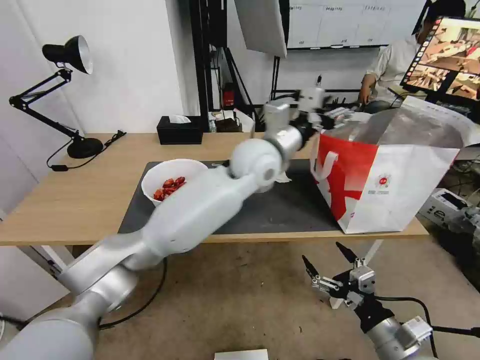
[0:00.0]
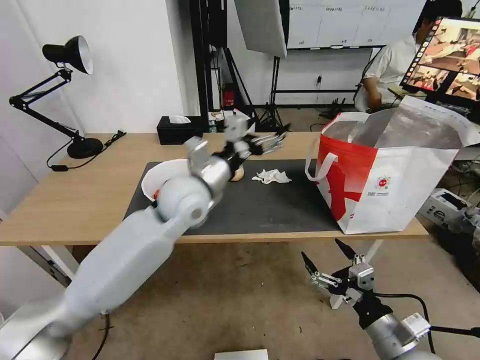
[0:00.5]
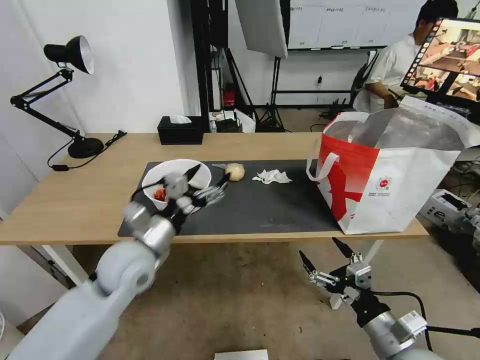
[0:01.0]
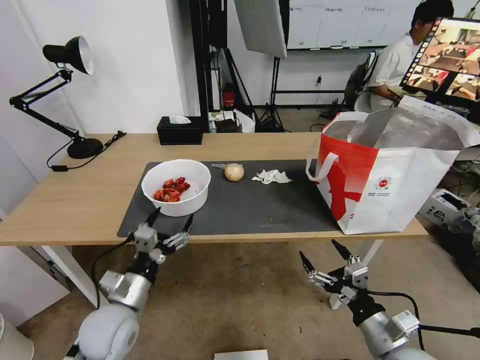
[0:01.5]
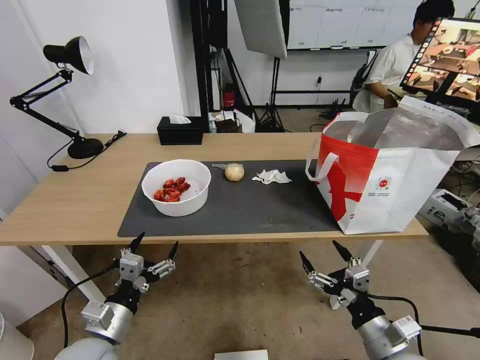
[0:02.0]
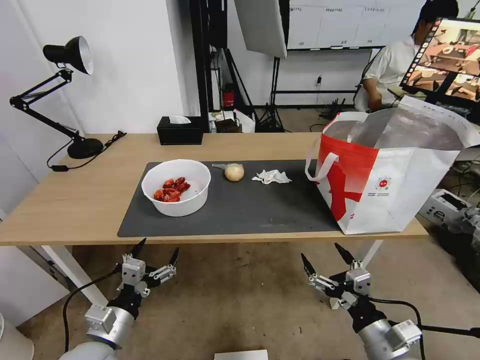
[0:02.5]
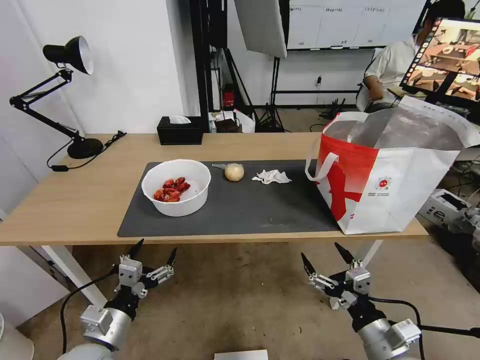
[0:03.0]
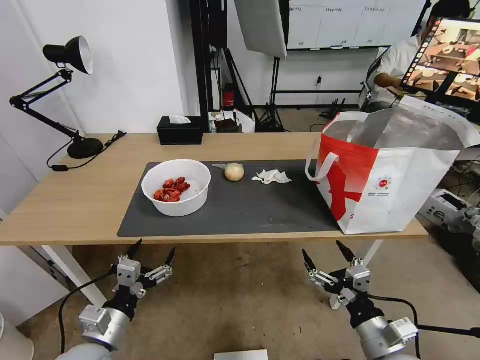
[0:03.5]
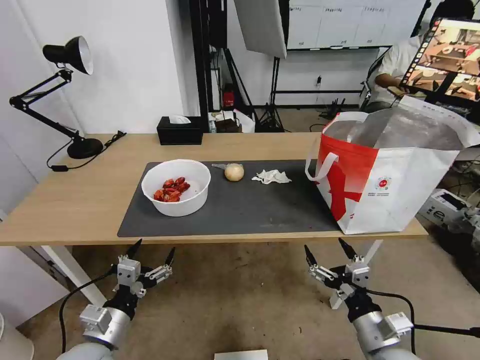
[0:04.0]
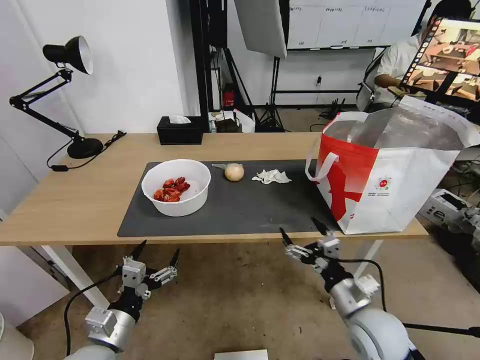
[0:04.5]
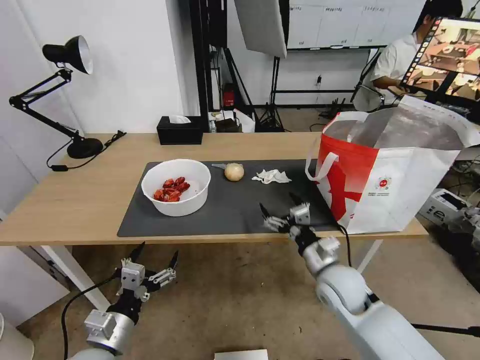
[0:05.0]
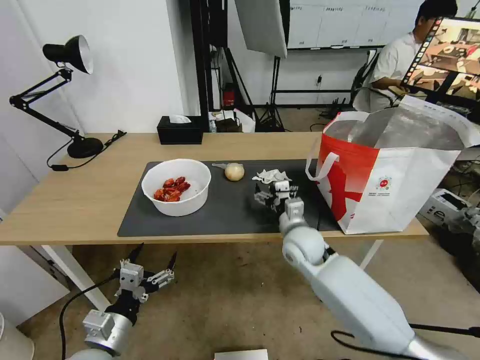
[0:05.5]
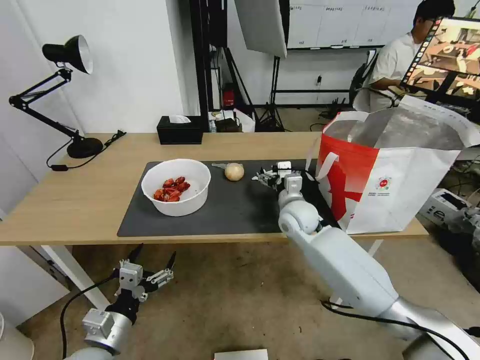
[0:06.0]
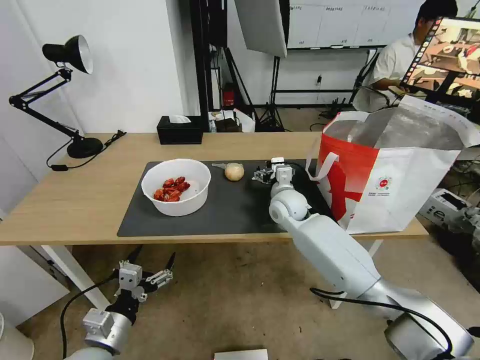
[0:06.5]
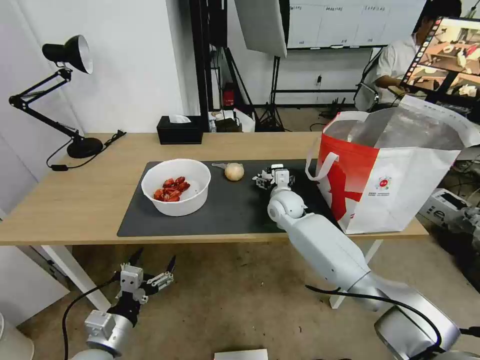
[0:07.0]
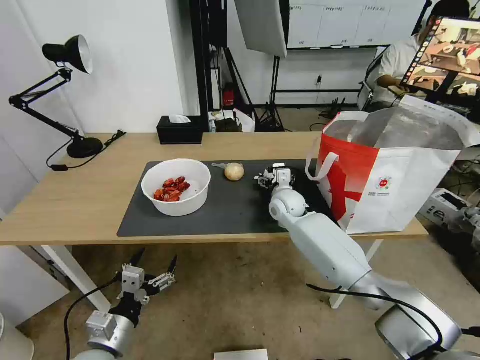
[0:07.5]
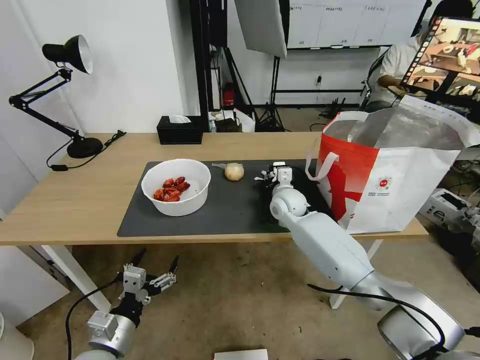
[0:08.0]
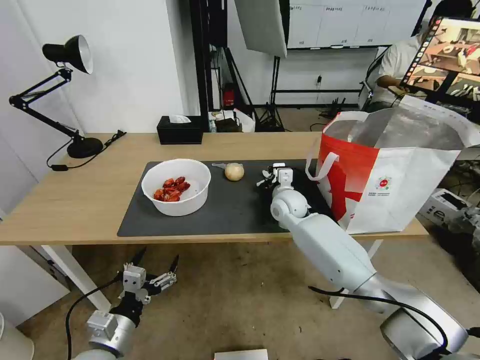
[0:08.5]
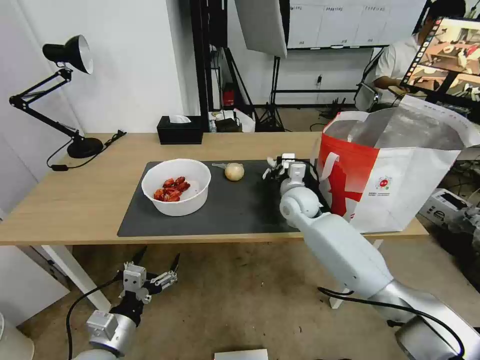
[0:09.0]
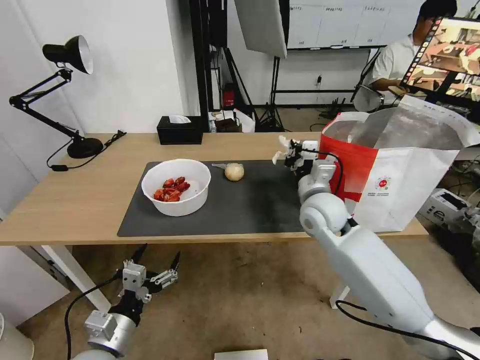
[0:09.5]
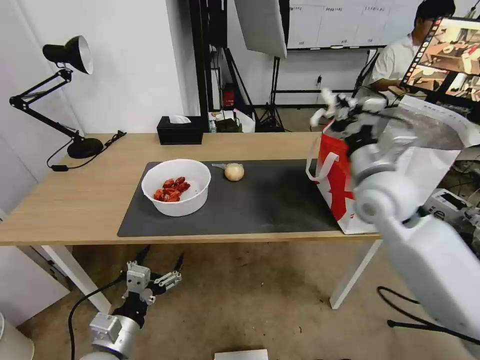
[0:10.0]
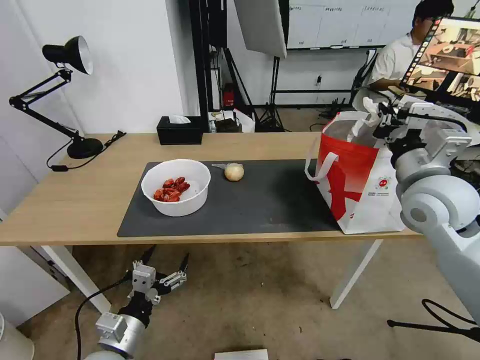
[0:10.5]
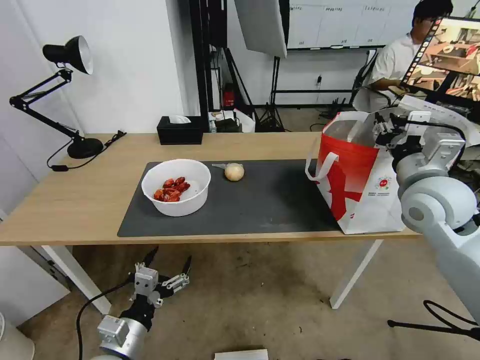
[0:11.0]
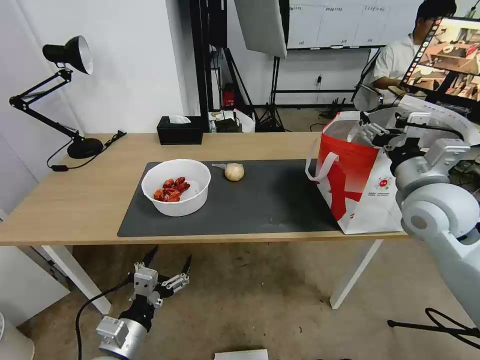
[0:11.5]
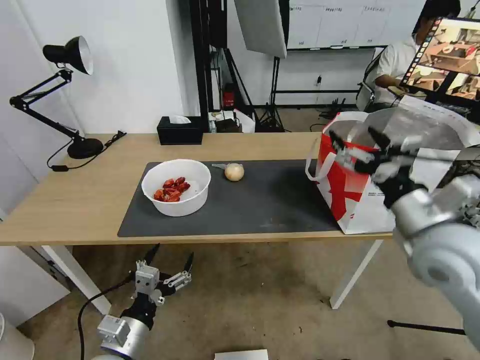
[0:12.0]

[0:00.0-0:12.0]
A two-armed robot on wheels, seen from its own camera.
Task of the whole recording: Pick up the trash from the table and place it into the takeout bag.
0:00.0 to 0:02.0: The left gripper heads to the left, backward and downward, covering about 50 cm.
0:02.0 to 0:04.0: There are only small adjustments of the grippers.
0:04.0 to 0:06.0: The right gripper heads forward and to the left, covering some 35 cm.
0:06.0 to 0:08.0: The right gripper travels forward by about 5 cm, and closes.
0:08.0 to 0:10.0: The right gripper goes roughly 25 cm upward, backward and to the right, and closes its fingers.
0:10.0 to 0:12.0: The right gripper is displaced backward by approximately 10 cm, and opens.

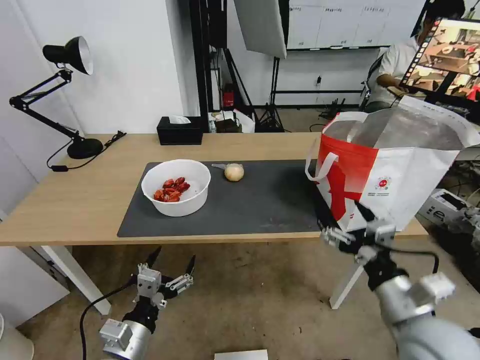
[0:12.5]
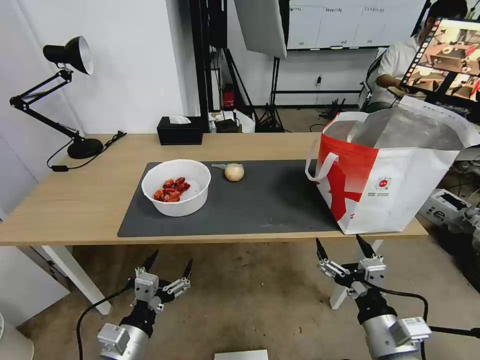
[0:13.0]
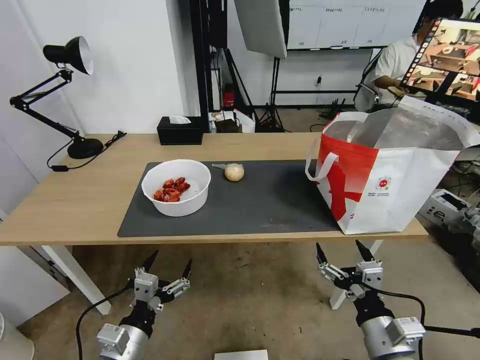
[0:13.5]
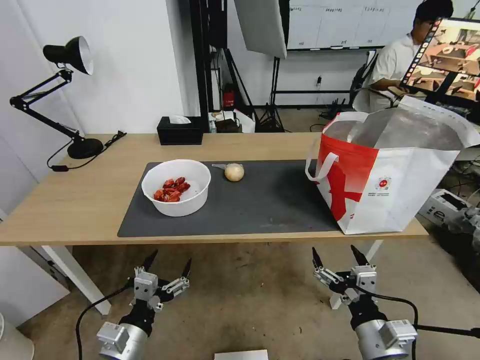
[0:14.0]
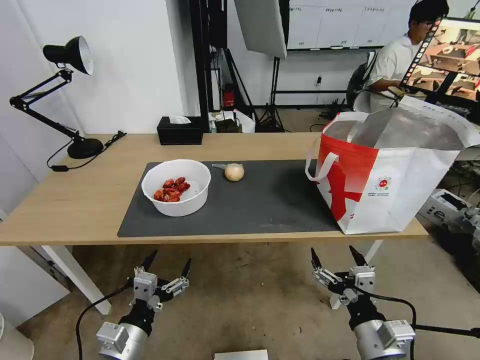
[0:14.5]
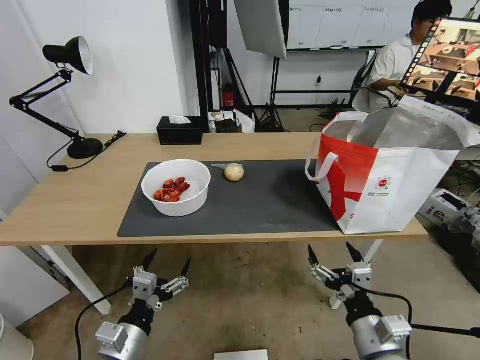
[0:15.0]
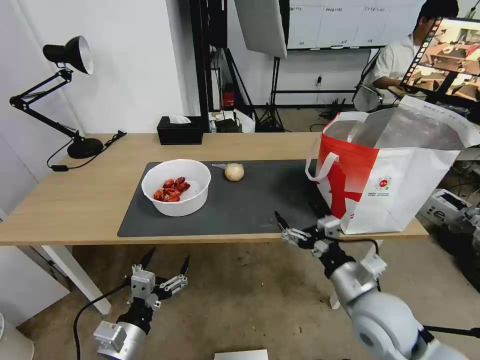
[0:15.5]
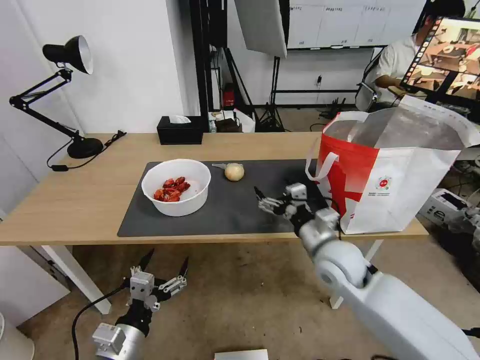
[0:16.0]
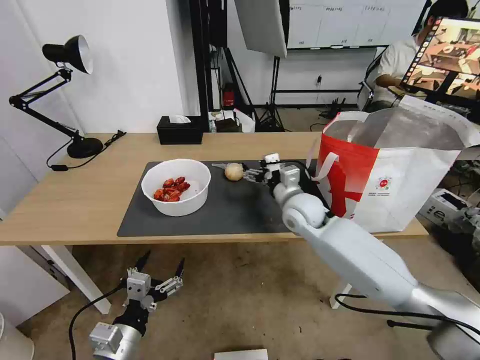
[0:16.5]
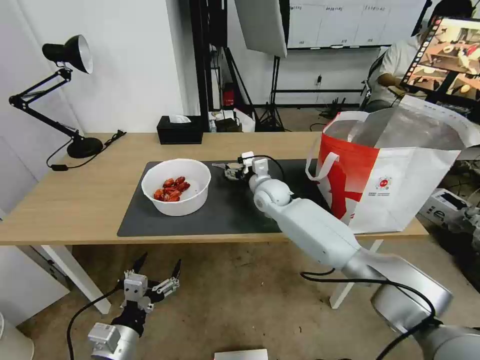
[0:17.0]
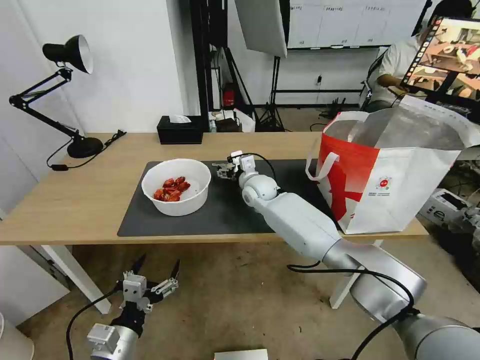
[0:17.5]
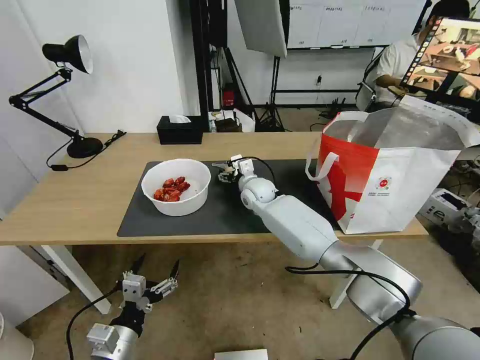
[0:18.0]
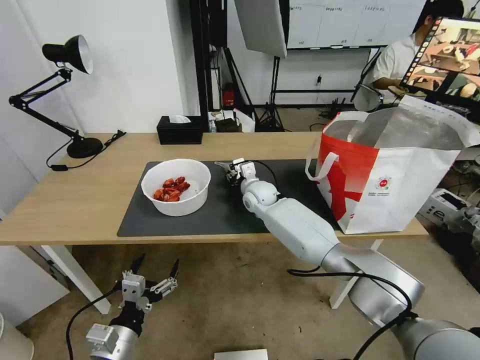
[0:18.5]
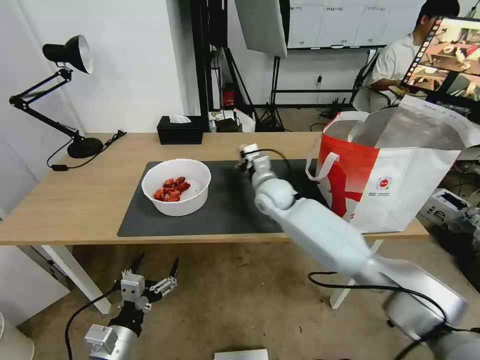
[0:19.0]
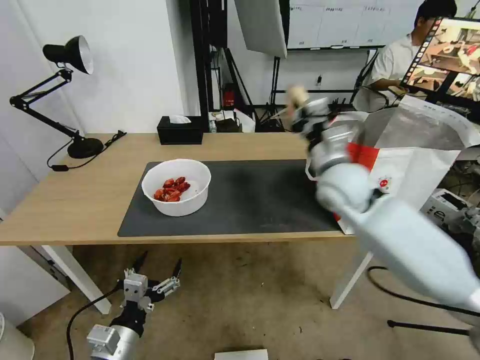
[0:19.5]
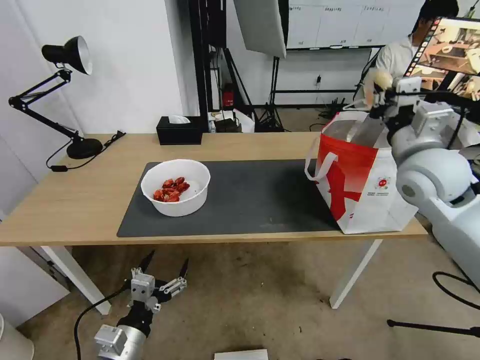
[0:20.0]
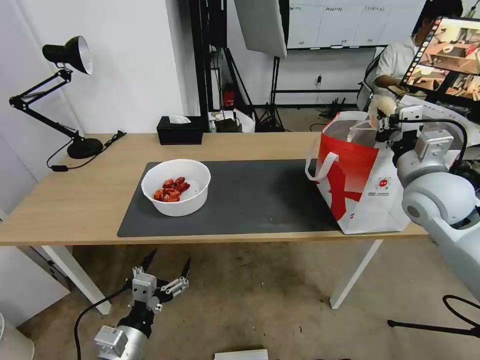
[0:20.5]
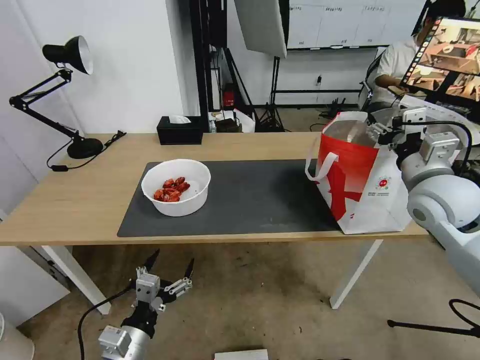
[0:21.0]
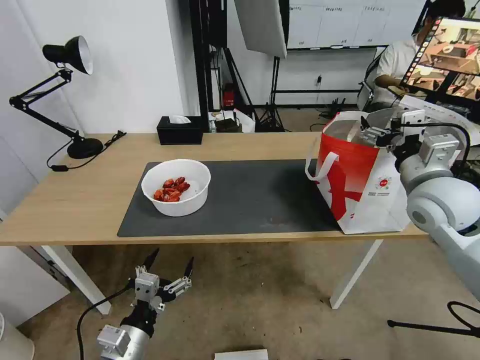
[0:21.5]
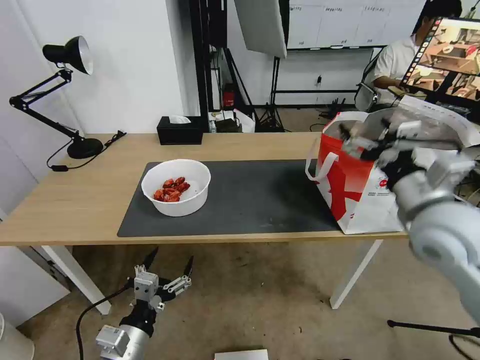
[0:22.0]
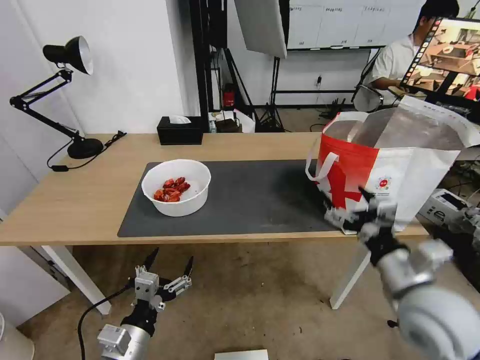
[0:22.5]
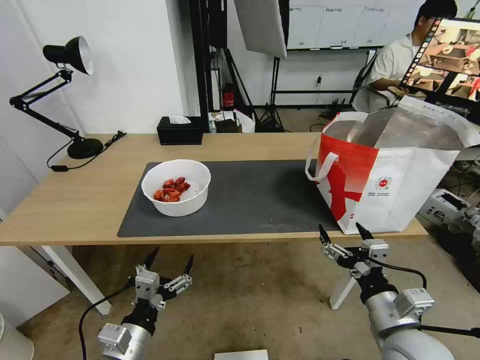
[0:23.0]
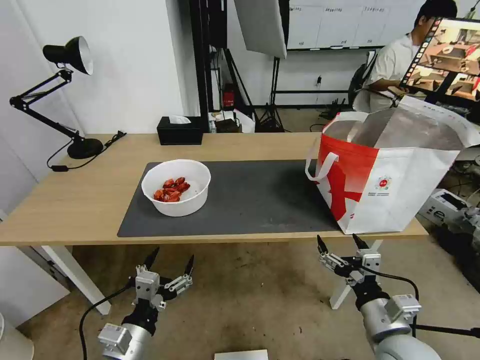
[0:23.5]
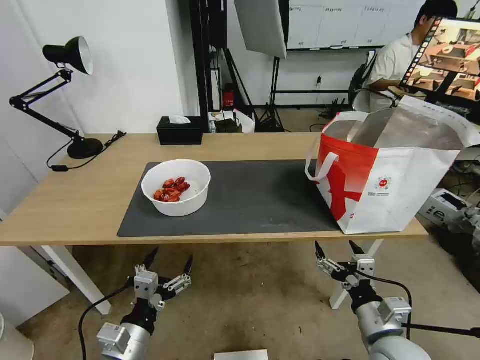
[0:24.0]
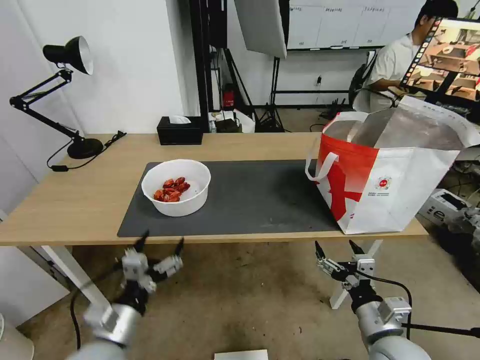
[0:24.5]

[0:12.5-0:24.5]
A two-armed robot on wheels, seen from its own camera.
Task of the whole recording: Pick up the trash from the table and place it into the takeout bag.
0:12.5 to 0:14.5: The right gripper is displaced downward by approximately 10 cm.
0:14.5 to 0:16.5: The right gripper shifts approximately 30 cm forward.
0:16.5 to 0:18.5: The right gripper travels forward, to the left and downward by some 15 cm, and closes its fingers.
0:18.5 to 0:20.5: The right gripper moves to the right, upward and backward, some 40 cm.
0:20.5 to 0:22.5: The right gripper shifts approximately 20 cm backward and downward, and opens its fingers.
0:22.5 to 0:24.5: The right gripper is displaced downward by some 10 cm.

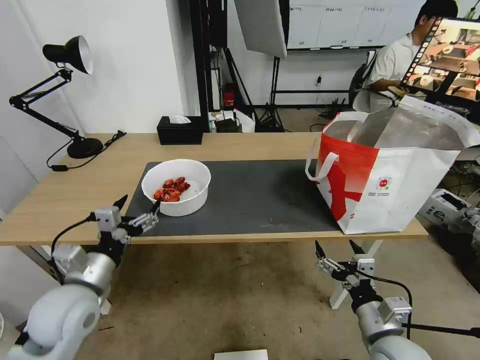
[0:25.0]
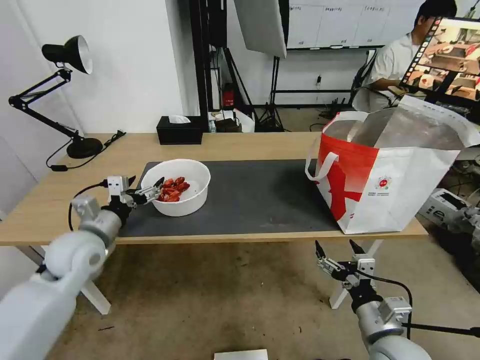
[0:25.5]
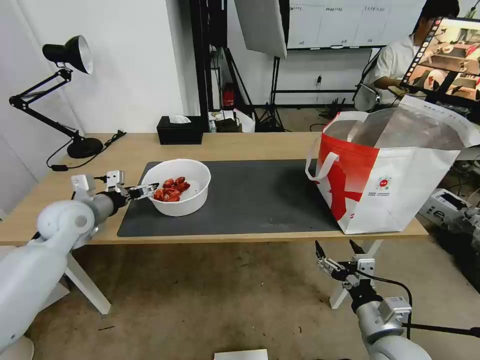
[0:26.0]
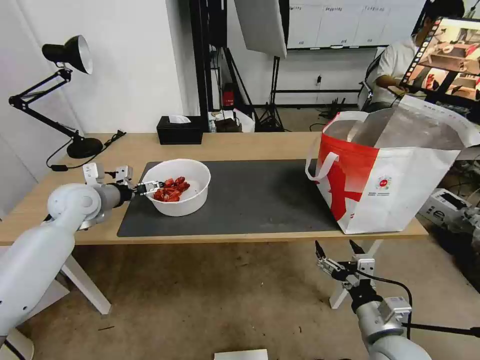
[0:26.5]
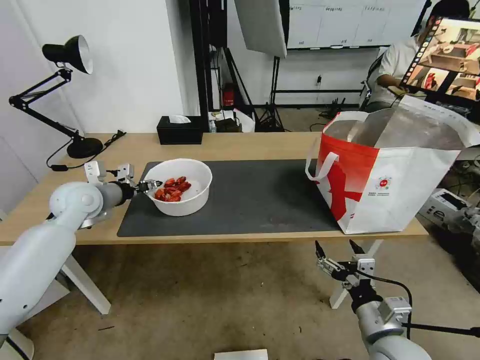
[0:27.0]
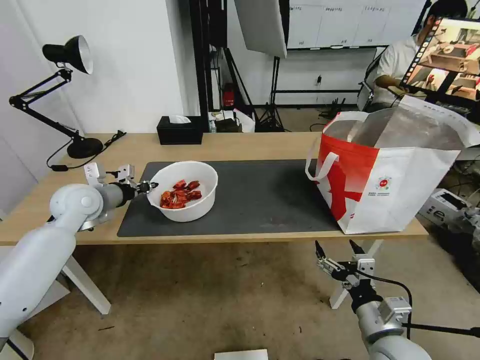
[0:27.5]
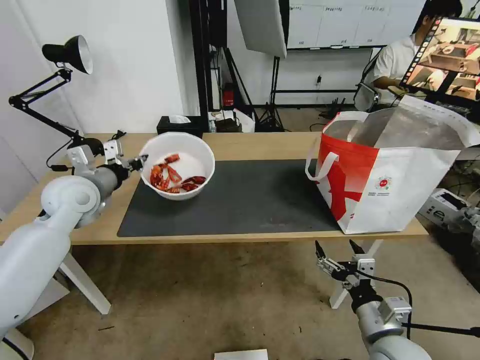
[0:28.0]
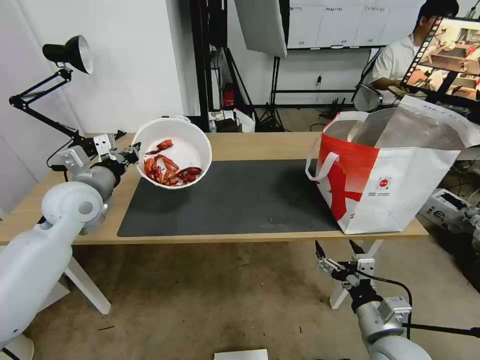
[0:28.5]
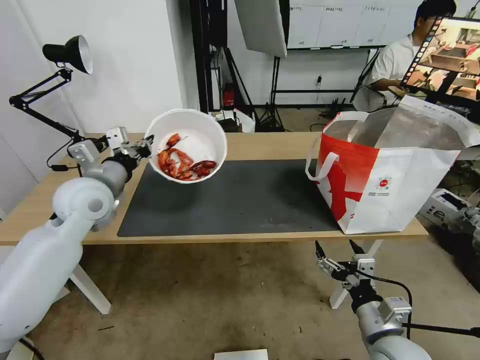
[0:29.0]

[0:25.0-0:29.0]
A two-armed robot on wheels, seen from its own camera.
Task of the whole recording: Pick up the trash from the table and place it into the takeout bag.
0:25.0 to 0:27.0: The left gripper is displaced forward by roughly 20 cm, and closes its fingers.
0:27.0 to 0:29.0: The left gripper travels to the right and upward by approximately 10 cm, and closes its fingers.
